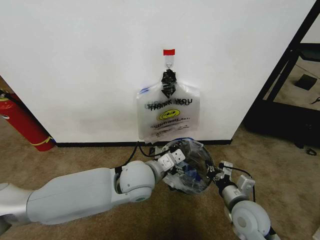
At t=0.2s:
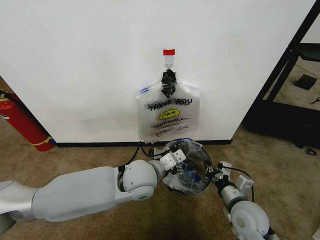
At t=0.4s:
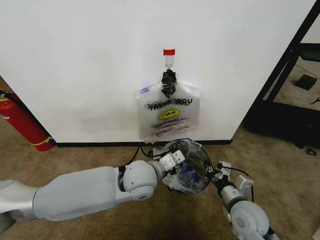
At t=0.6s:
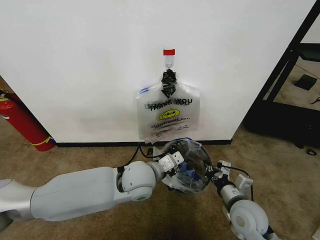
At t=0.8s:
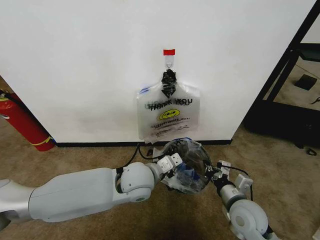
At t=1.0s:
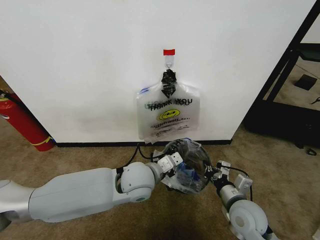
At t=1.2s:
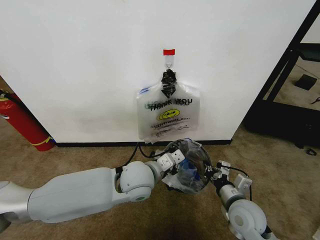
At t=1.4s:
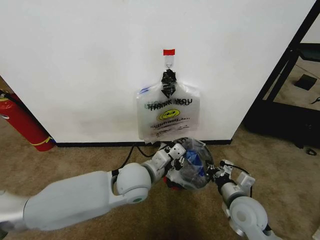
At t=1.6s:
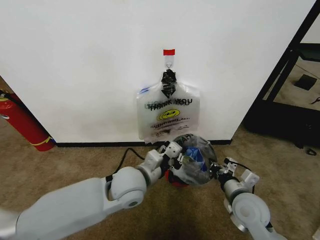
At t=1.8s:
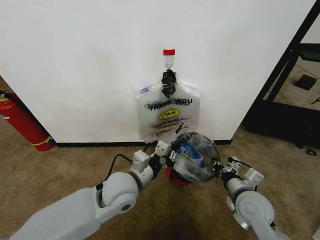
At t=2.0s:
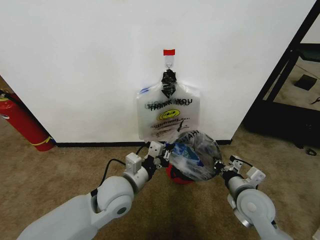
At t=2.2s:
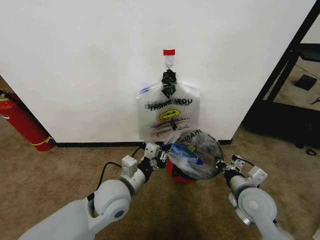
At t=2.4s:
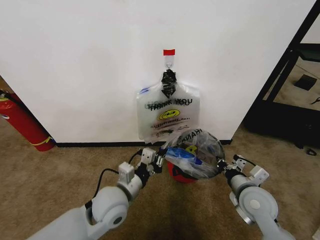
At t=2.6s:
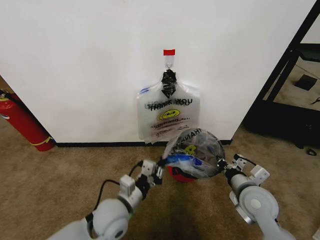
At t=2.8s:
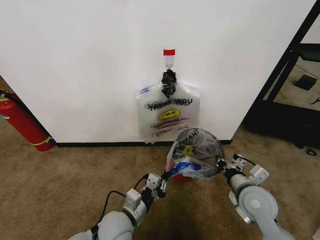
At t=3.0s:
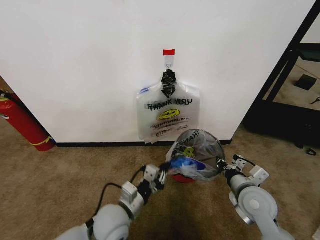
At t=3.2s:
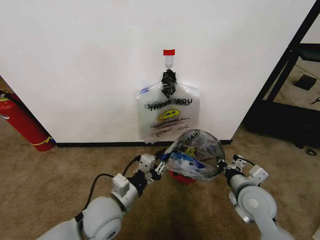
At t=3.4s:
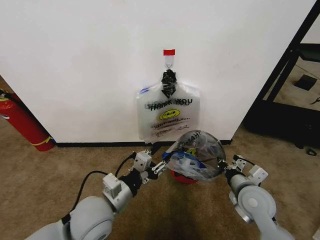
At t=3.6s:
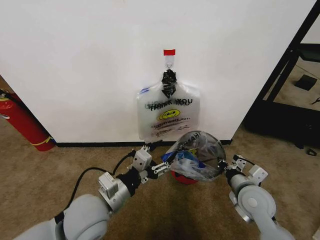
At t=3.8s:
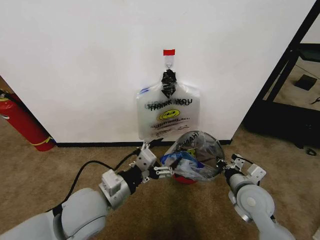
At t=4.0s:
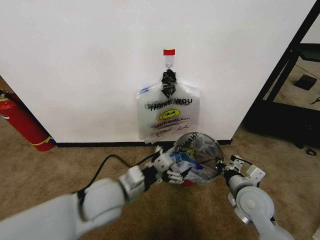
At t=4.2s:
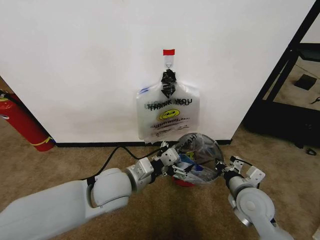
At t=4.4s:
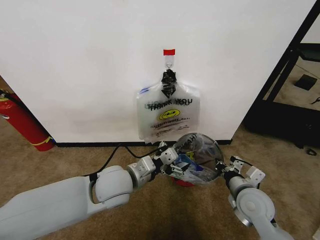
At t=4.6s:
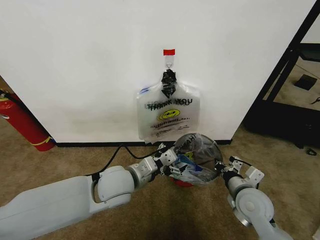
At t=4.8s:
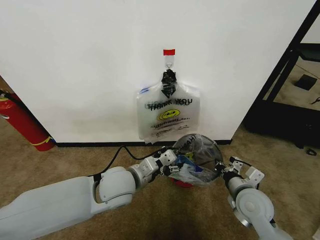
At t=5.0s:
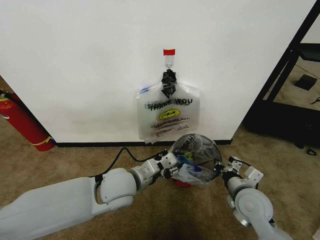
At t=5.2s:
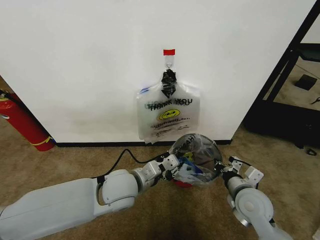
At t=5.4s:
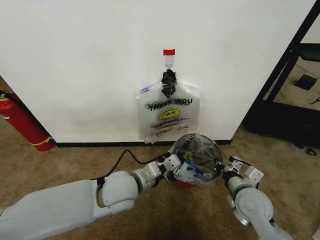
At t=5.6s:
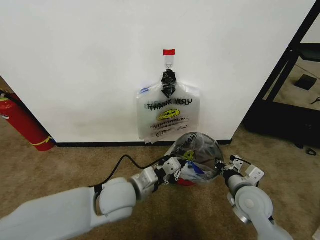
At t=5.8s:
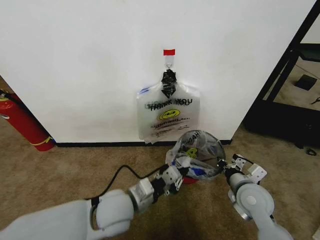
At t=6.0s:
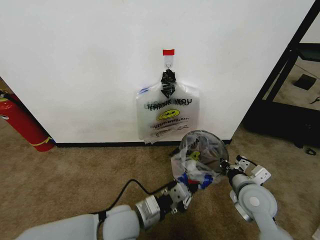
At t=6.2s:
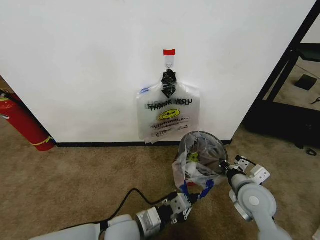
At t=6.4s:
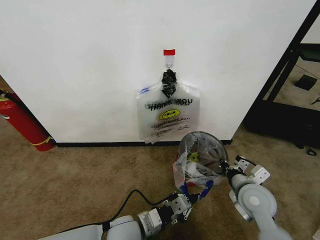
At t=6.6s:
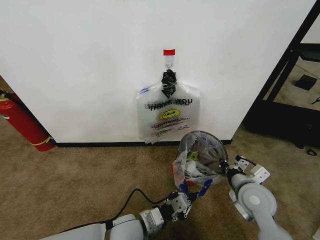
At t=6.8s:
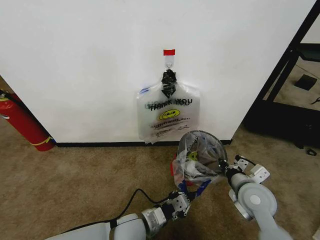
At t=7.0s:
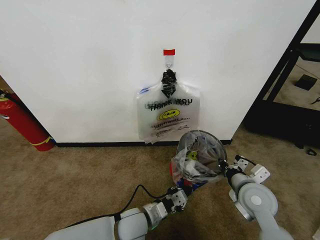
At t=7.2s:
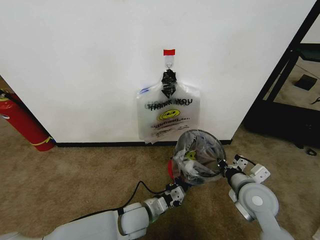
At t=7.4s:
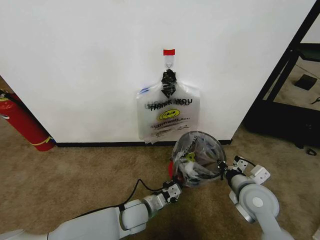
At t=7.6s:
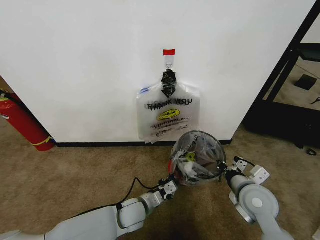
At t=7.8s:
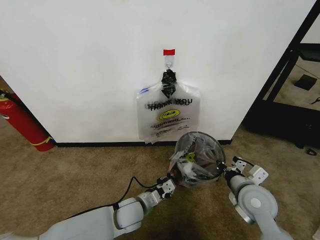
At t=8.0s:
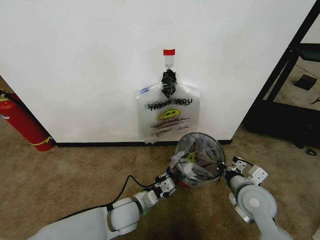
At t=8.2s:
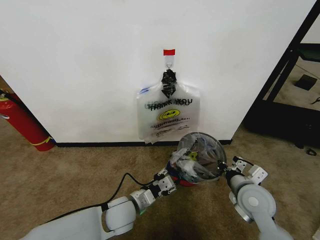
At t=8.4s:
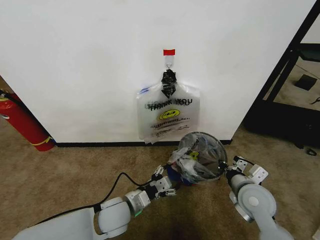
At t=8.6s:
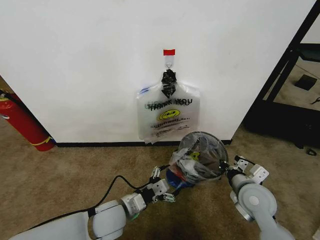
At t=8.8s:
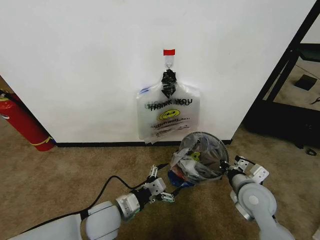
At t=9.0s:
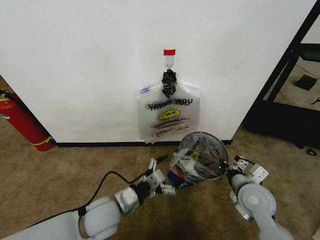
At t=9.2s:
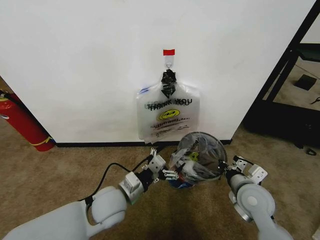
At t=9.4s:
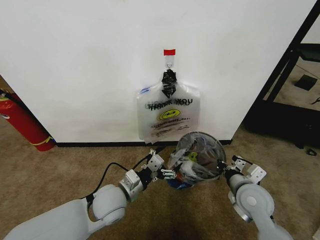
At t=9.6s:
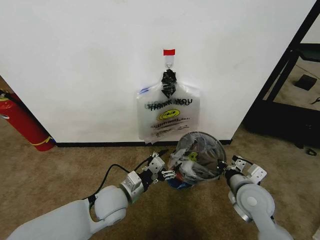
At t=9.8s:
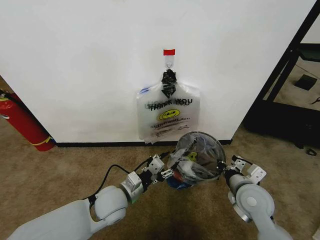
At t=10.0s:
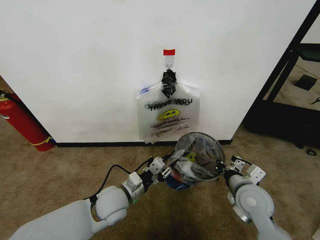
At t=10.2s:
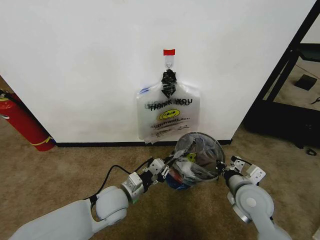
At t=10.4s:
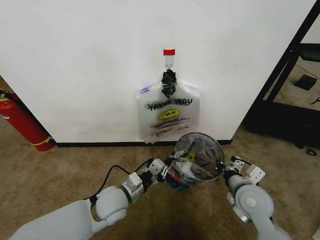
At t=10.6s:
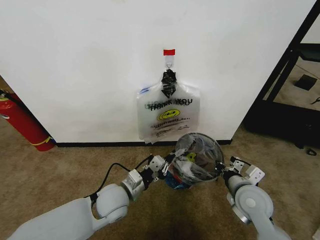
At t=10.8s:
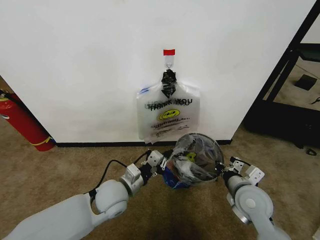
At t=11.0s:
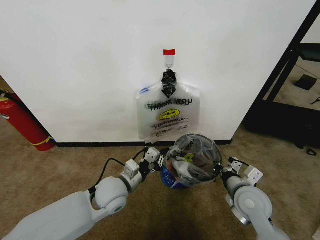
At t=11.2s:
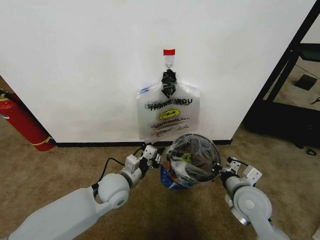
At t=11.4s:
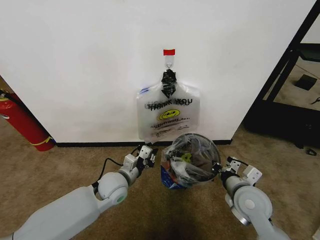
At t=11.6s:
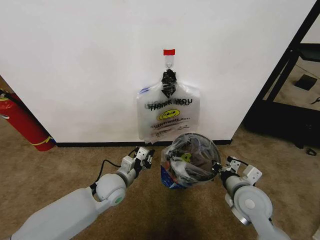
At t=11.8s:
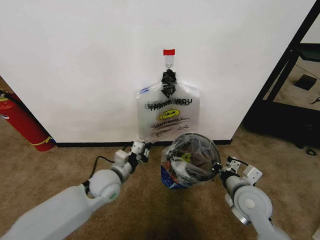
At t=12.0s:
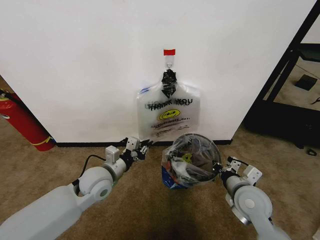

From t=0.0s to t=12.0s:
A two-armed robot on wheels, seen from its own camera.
Task of the whole recording: Pick up the garbage bag from the wall and place it over the trash bin.
From t=0.0s to t=1.6s: The left gripper closes.
From t=1.6s to t=3.0s: The left gripper shifts approximately 10 cm downward and backward.
From t=3.0s to t=4.4s: The left gripper moves upward and forward, roughly 10 cm, and opens its fingers.
From t=4.4s to t=6.0s: The left gripper goes about 10 cm backward and downward, and closes up.
From t=6.0s to t=7.6s: The left gripper moves downward and forward, about 15 cm.
From t=7.6s to t=9.0s: The left gripper is displaced upward and to the left by roughly 15 cm, and opens up.
From t=9.0s to t=10.4s: The left gripper closes its fingers.
From t=10.4s to t=12.0s: The left gripper goes about 5 cm to the left.

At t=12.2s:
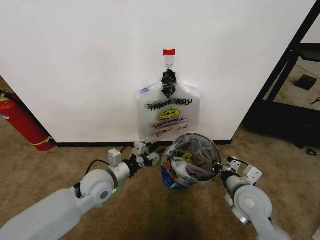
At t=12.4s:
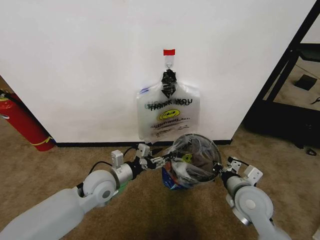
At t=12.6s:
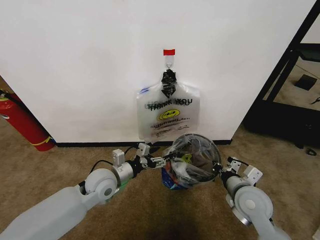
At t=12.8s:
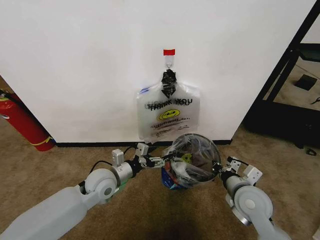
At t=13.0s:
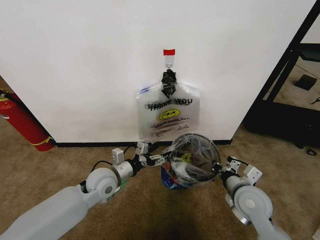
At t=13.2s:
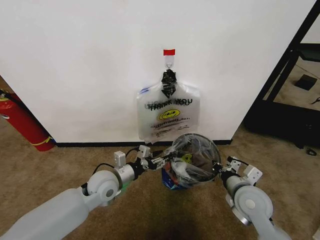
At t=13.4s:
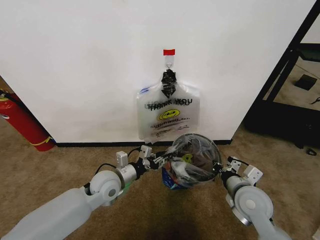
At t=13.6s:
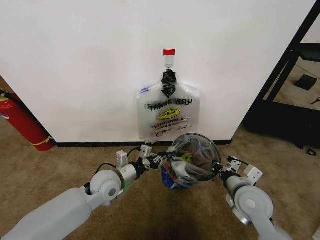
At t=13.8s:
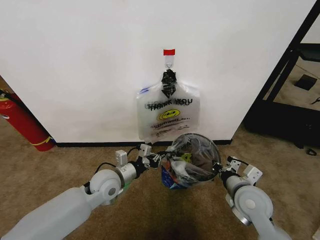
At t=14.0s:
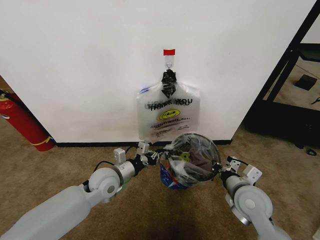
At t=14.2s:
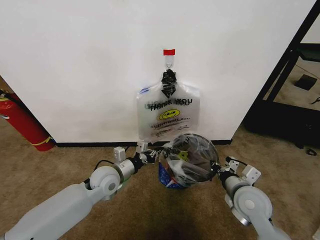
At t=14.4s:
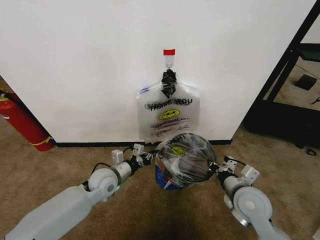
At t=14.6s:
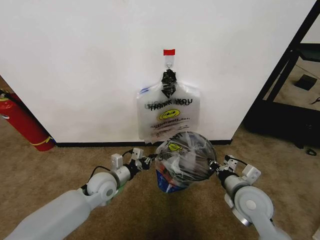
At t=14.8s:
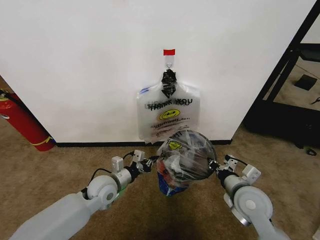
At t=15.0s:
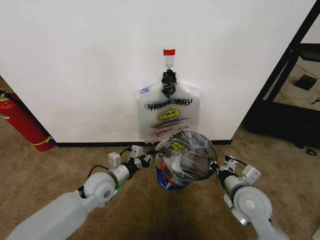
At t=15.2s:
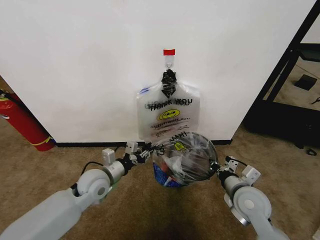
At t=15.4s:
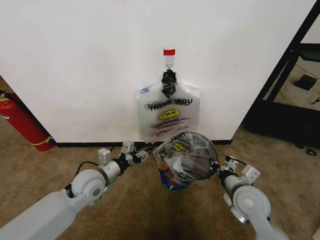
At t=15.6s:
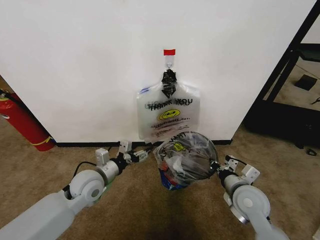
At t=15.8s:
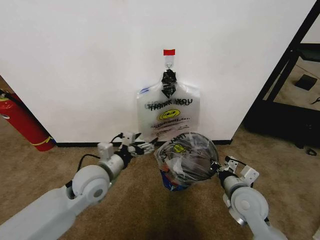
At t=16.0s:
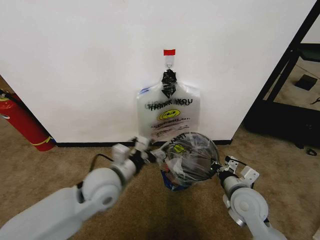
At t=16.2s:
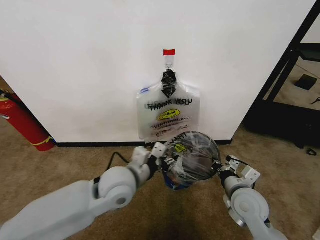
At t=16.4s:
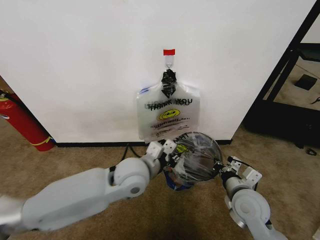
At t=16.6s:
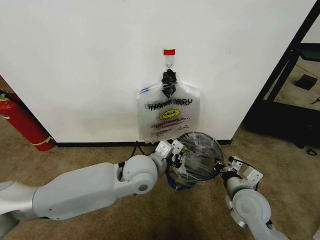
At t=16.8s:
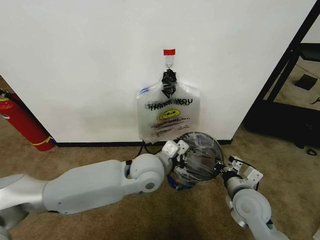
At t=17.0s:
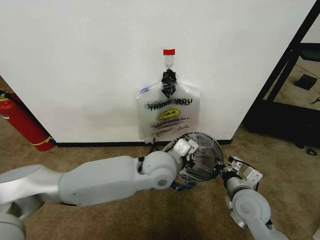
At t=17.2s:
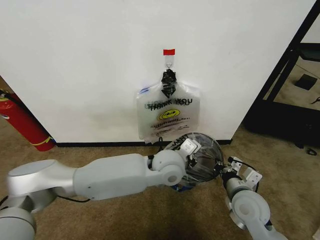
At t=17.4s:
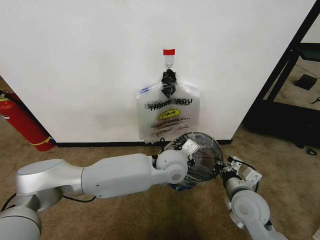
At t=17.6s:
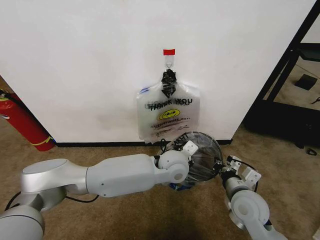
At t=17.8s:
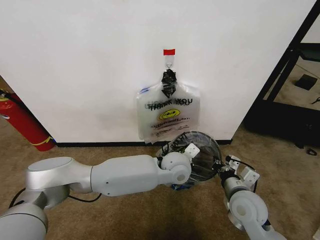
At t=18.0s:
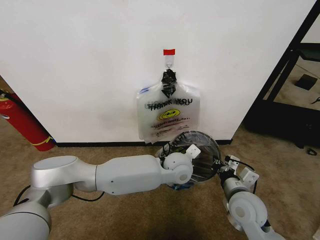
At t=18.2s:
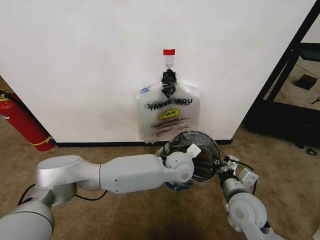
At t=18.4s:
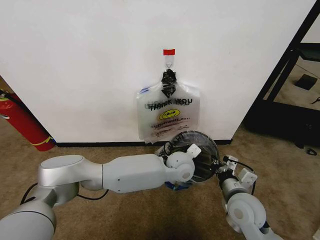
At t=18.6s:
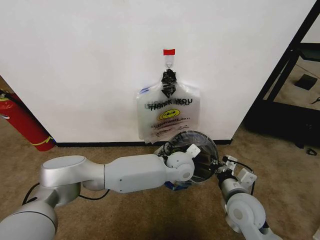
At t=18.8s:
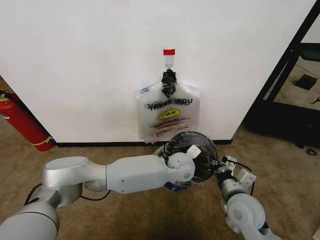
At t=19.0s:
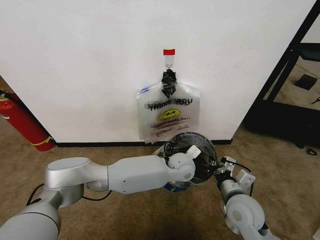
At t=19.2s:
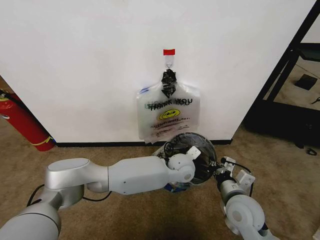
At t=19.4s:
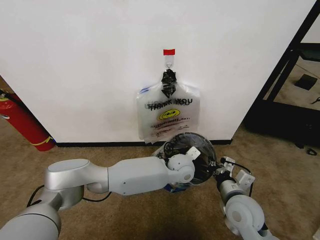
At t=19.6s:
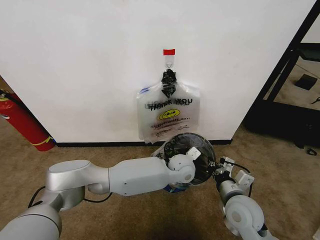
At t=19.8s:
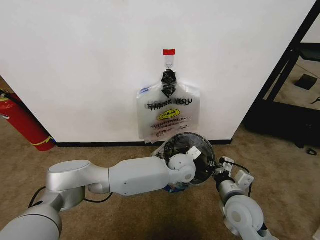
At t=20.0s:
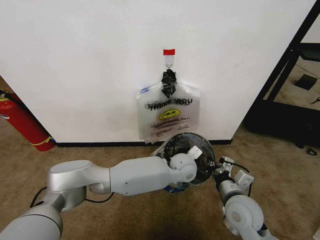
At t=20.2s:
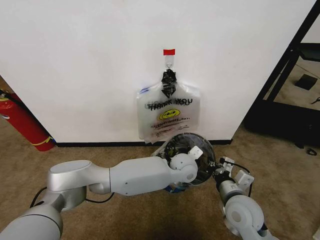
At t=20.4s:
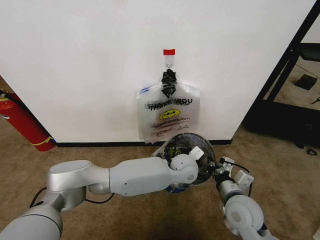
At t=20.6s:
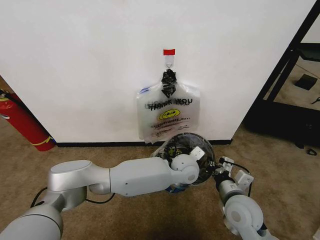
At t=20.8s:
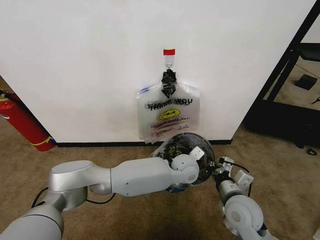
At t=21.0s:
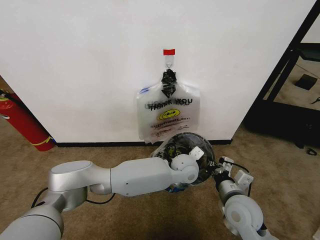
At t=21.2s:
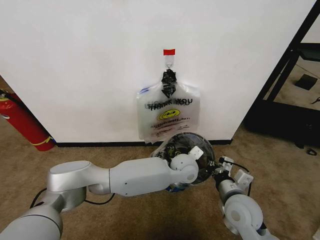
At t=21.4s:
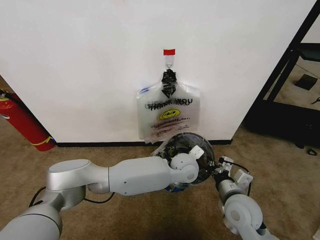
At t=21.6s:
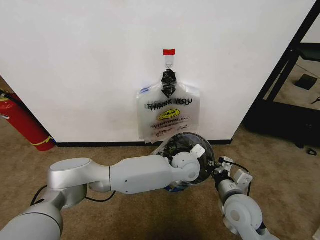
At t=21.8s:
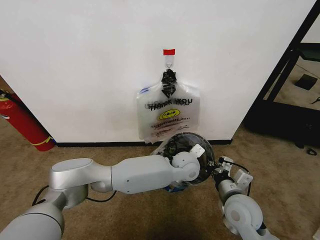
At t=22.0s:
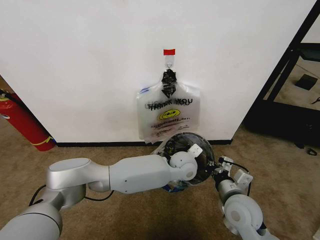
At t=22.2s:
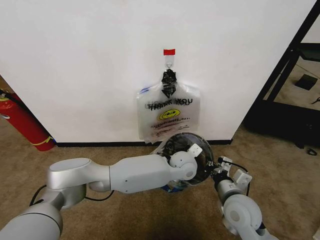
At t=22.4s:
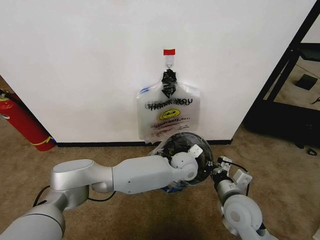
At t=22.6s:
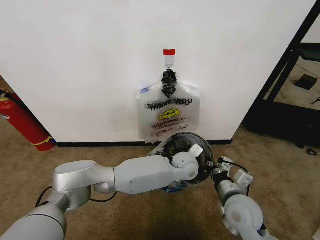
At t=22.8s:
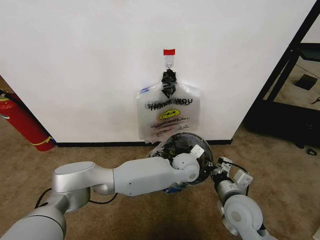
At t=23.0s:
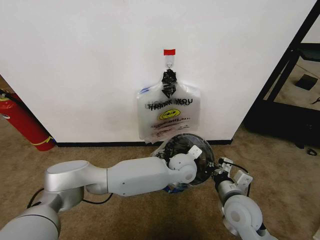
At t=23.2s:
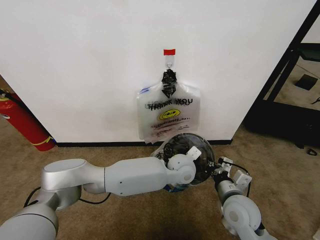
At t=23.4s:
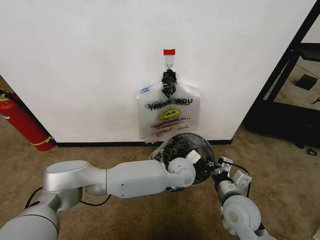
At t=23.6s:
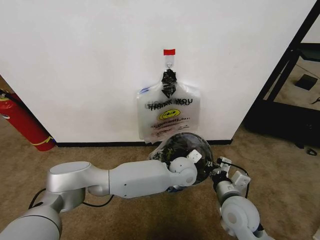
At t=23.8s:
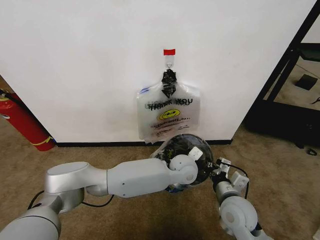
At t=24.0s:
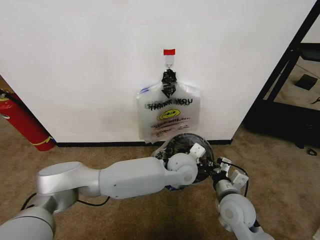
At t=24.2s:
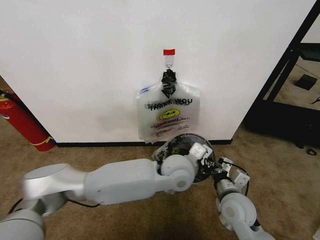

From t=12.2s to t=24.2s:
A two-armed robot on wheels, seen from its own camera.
Task of the whole recording: Pick up the garbage bag from the wall and place it over the trash bin.
From t=12.2s to t=13.8s: The left gripper closes its fingers.
From t=13.8s to t=15.2s: The grippers move only a little.
From t=15.2s to t=16.6s: The left gripper heads to the right and upward, covering approximately 20 cm, and opens and closes again.
From t=16.6s to t=18.2s: The left gripper goes some 15 cm to the right, downward and forward.
From t=18.2s to t=19.8s: The grippers make only small movements.
From t=19.8s to t=21.2s: The left gripper opens its fingers.
From t=21.2s to t=22.6s: The left gripper closes.
From t=22.6s to t=24.2s: The left gripper is displaced upward and backward by roughly 10 cm.
